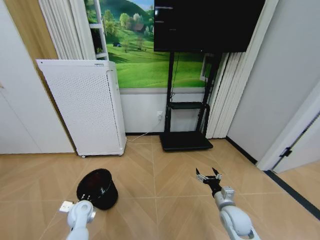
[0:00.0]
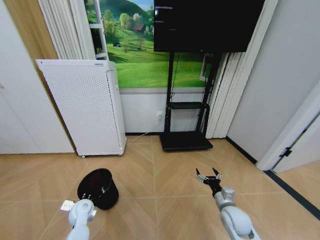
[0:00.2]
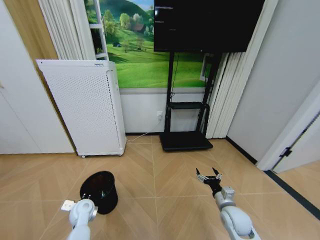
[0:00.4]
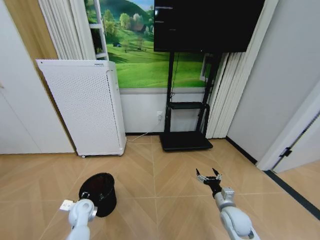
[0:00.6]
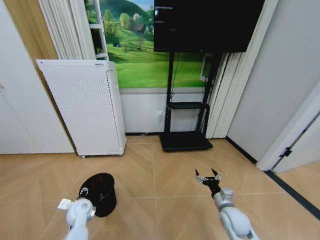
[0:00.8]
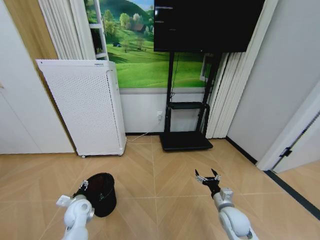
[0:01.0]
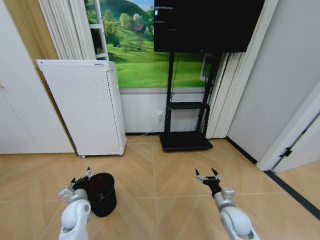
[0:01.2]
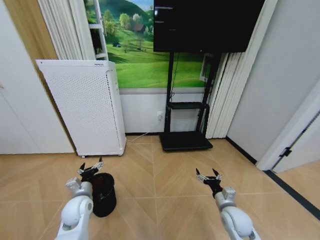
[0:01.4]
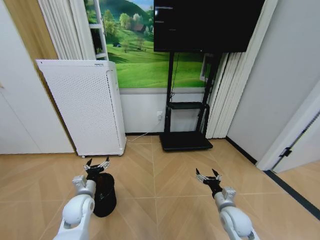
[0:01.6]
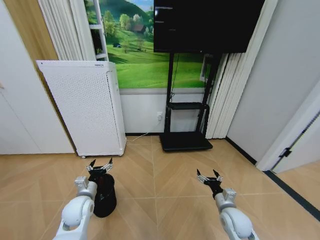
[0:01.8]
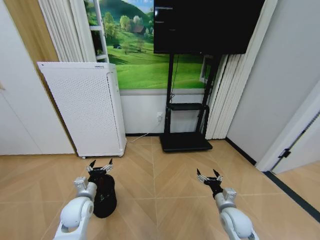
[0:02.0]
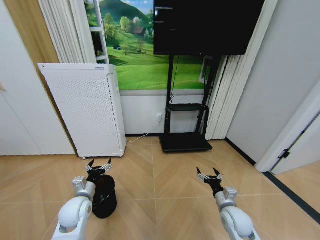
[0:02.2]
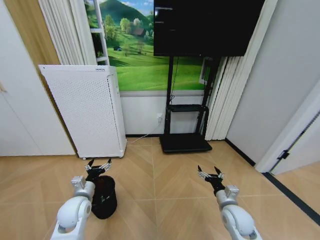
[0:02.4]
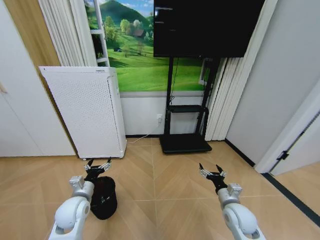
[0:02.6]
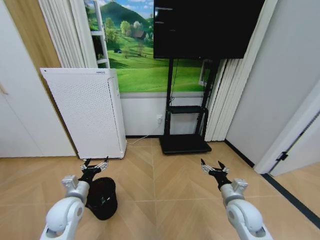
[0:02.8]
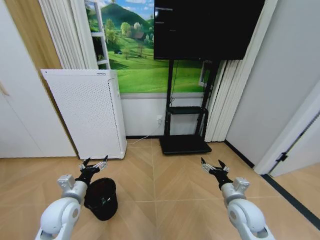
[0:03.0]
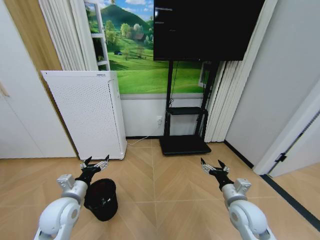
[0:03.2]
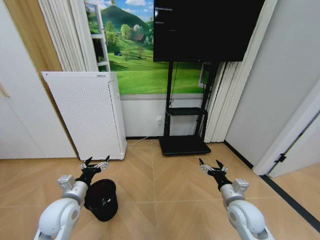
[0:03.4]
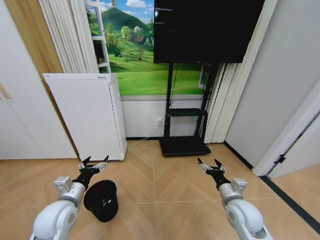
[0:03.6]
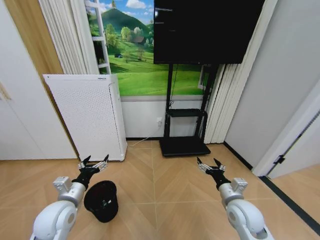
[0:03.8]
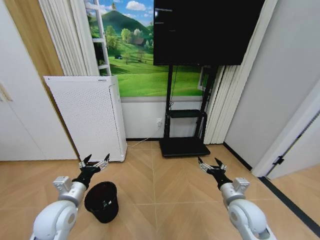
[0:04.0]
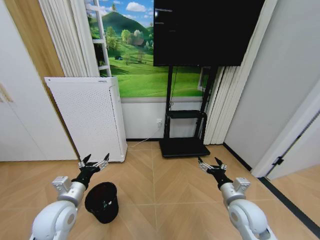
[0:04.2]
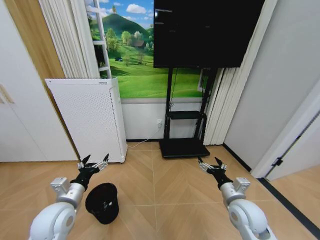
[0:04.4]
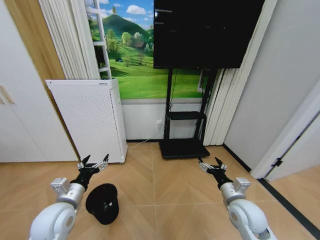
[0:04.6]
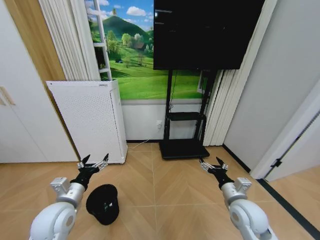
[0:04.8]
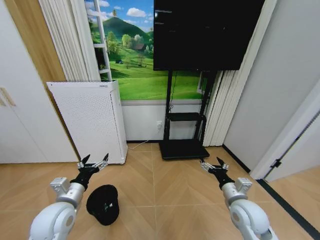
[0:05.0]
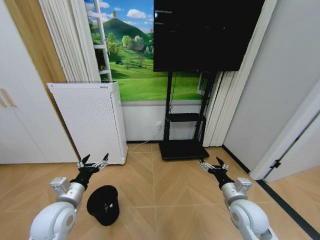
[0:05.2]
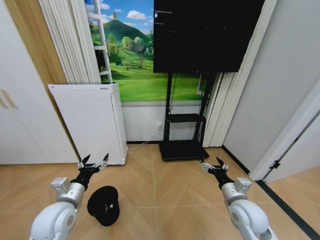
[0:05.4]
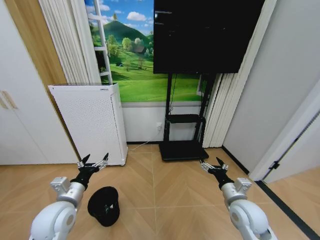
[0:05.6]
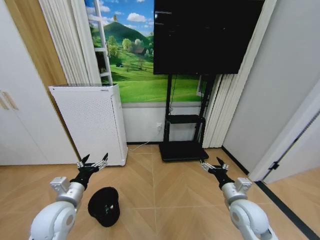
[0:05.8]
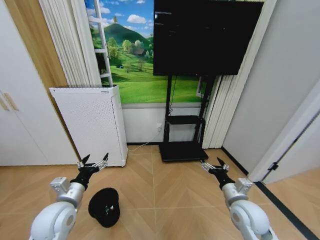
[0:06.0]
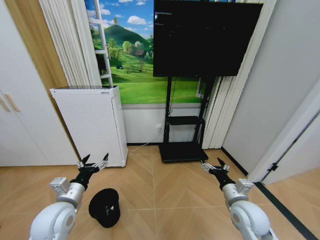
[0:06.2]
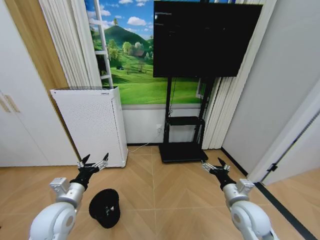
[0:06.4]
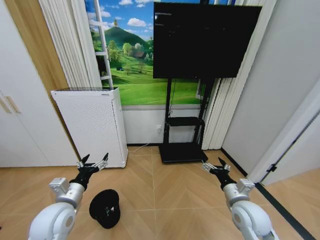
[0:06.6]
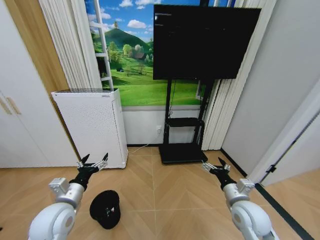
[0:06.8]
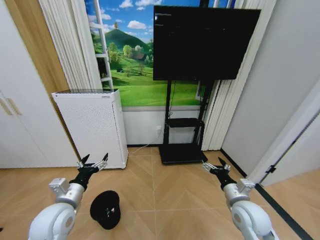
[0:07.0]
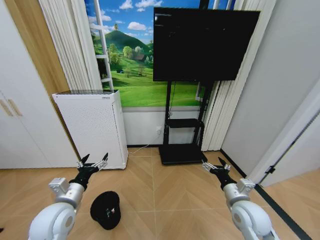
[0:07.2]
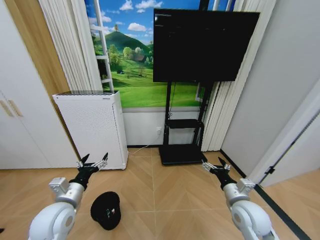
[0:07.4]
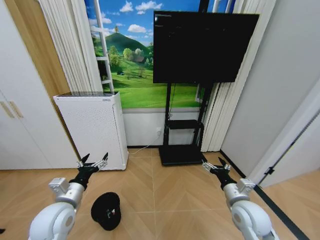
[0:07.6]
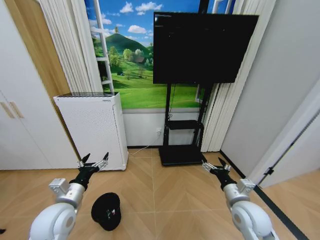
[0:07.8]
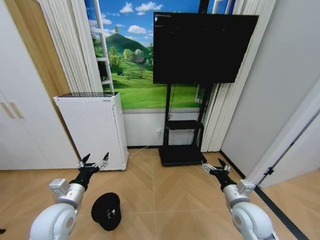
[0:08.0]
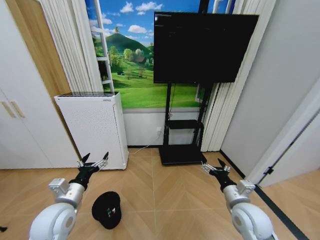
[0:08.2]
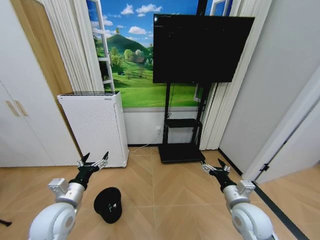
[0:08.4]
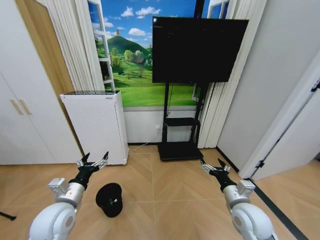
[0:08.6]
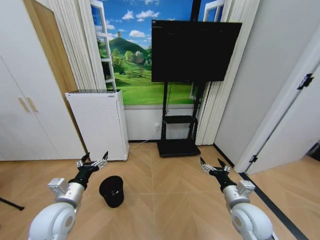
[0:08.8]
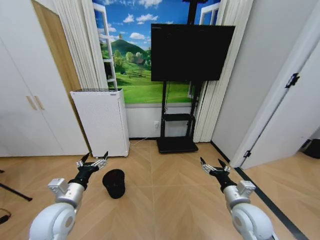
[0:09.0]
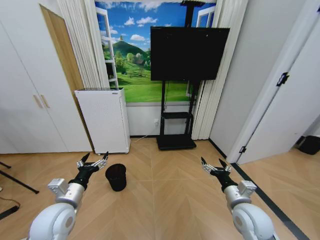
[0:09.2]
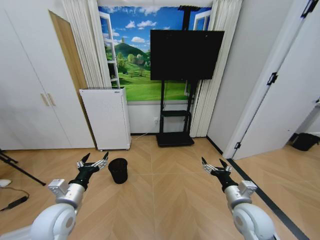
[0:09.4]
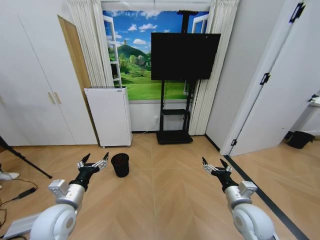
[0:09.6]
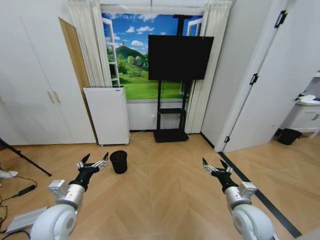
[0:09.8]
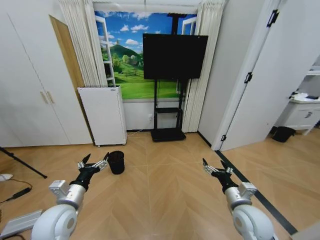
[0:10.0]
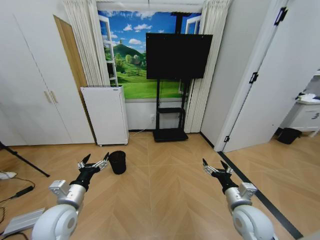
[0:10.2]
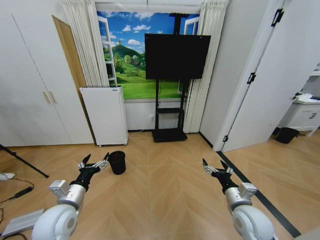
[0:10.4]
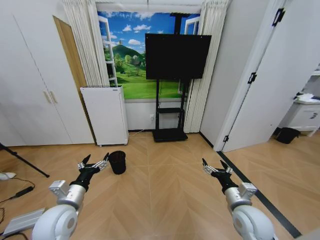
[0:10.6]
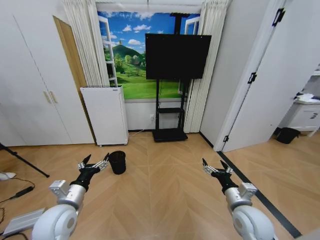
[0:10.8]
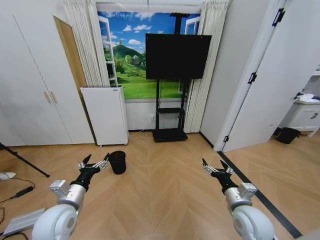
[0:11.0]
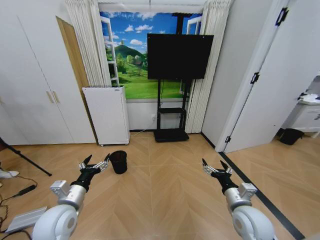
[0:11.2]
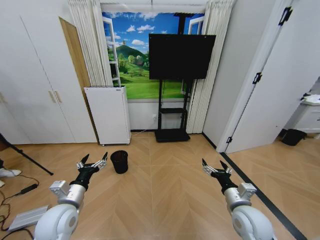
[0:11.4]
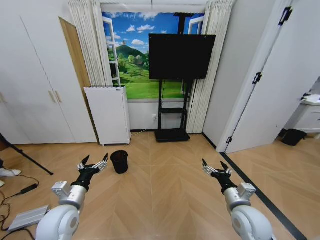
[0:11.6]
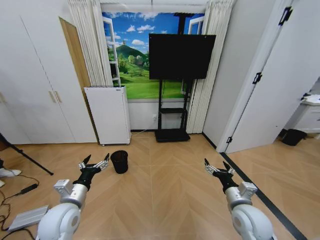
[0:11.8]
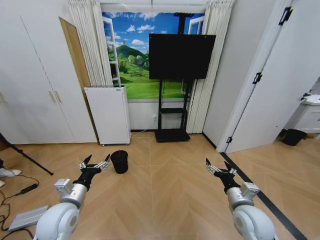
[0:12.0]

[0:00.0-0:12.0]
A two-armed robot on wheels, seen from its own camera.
Task of the whole recording: Pick up the trash bin and place the garbage on the floor into it.
0:00.0 to 0:01.6: The left gripper moves upward, approximately 10 cm, and opens.
0:01.6 to 0:03.0: Both grippers move upward, some 5 cm.
0:03.0 to 0:04.4: There are only small adjustments of the grippers.
0:04.4 to 0:07.6: Both grippers stay put.
0:10.4 to 0:12.0: Both grippers stay put.

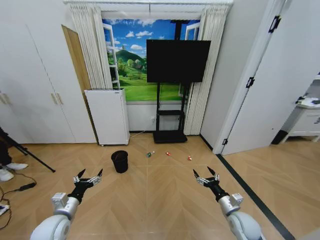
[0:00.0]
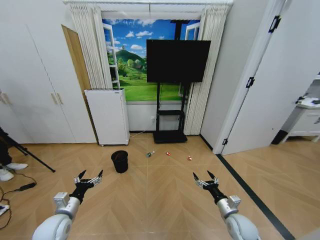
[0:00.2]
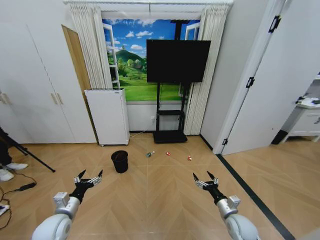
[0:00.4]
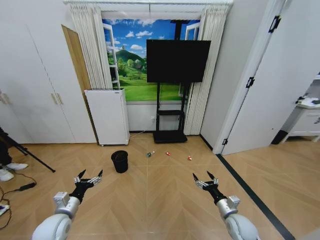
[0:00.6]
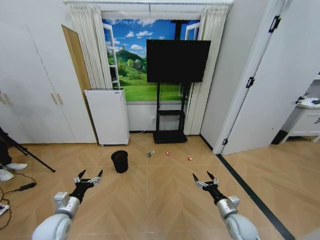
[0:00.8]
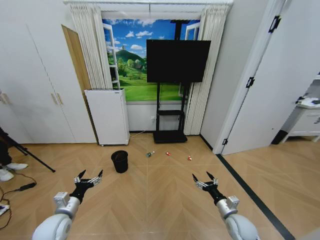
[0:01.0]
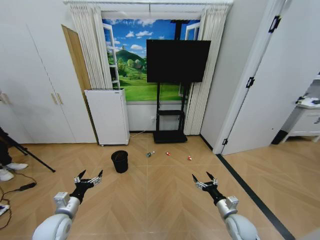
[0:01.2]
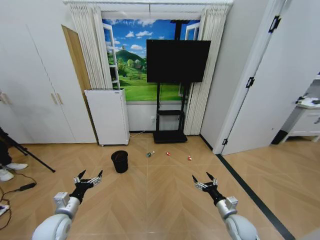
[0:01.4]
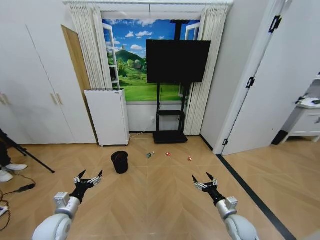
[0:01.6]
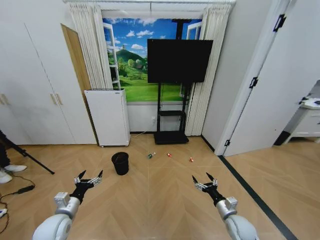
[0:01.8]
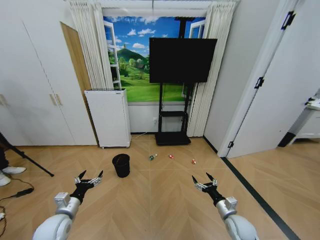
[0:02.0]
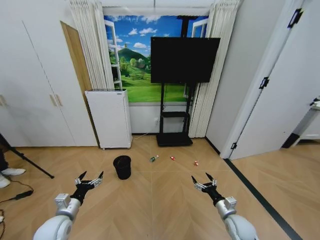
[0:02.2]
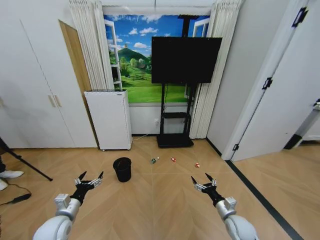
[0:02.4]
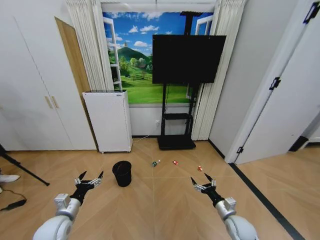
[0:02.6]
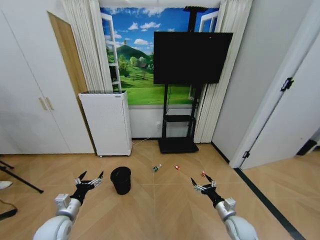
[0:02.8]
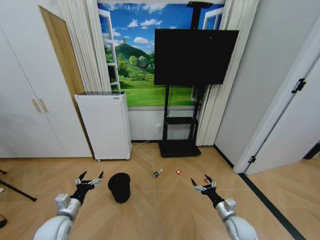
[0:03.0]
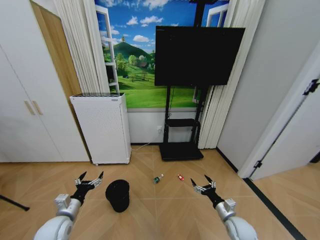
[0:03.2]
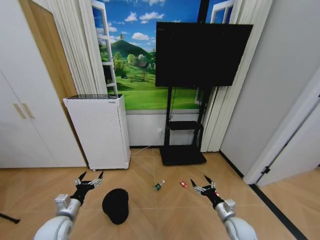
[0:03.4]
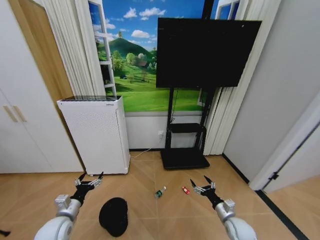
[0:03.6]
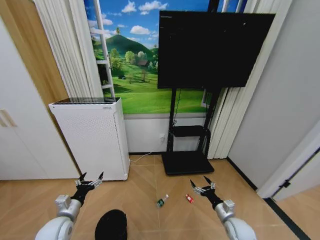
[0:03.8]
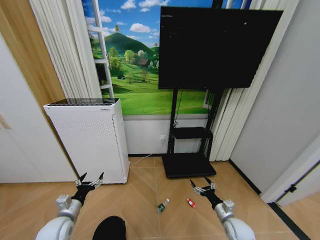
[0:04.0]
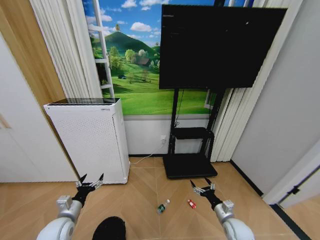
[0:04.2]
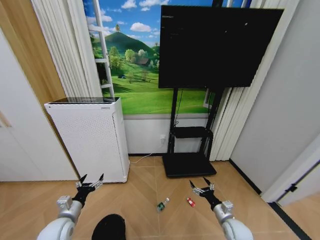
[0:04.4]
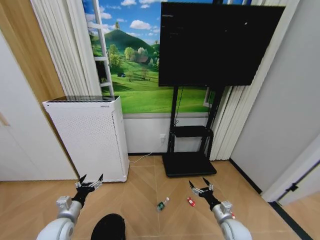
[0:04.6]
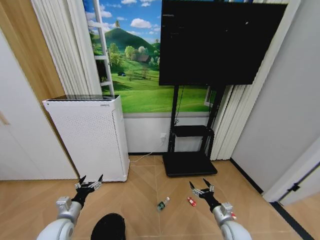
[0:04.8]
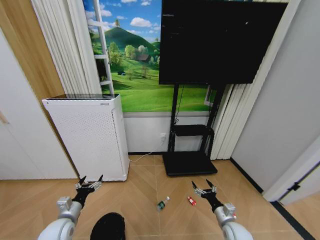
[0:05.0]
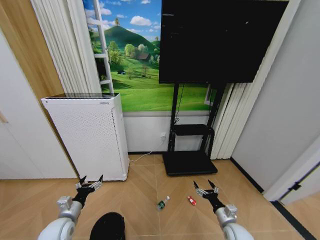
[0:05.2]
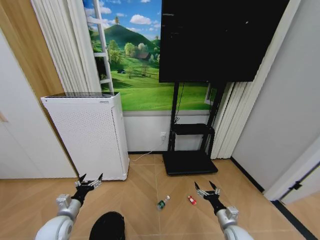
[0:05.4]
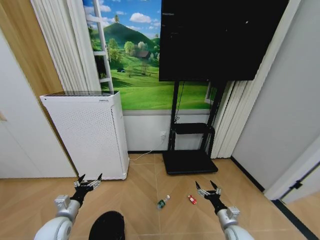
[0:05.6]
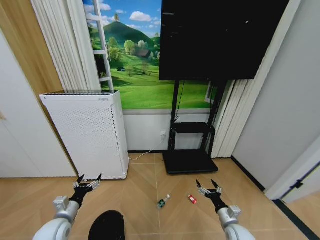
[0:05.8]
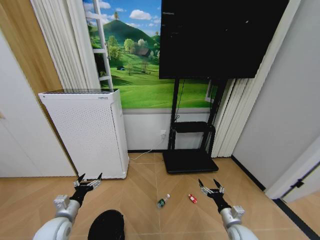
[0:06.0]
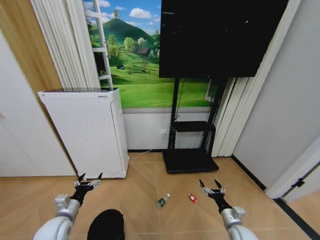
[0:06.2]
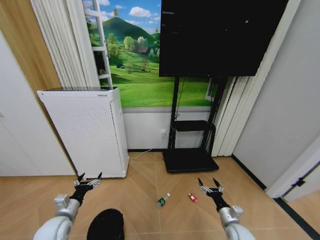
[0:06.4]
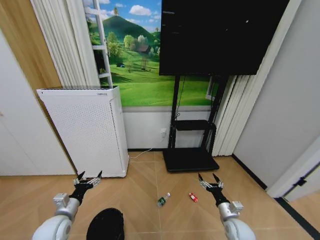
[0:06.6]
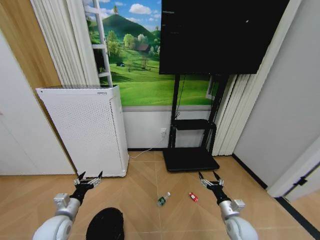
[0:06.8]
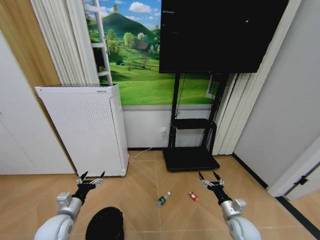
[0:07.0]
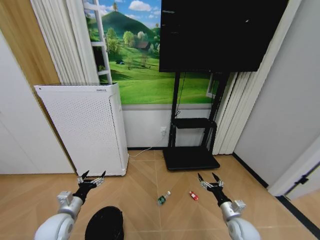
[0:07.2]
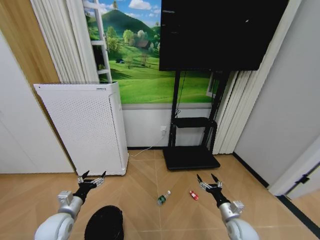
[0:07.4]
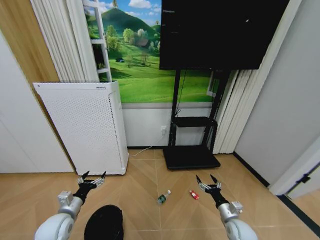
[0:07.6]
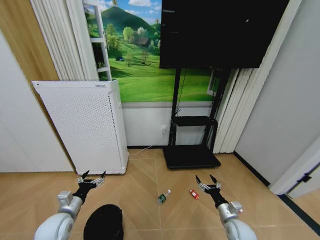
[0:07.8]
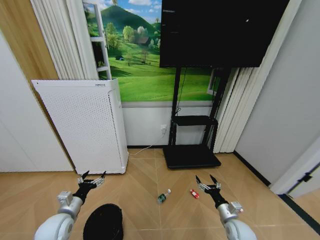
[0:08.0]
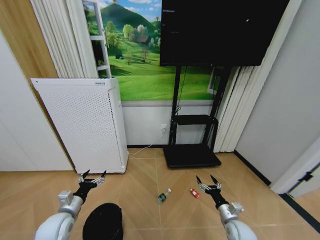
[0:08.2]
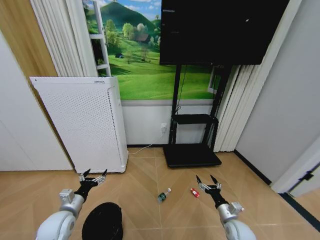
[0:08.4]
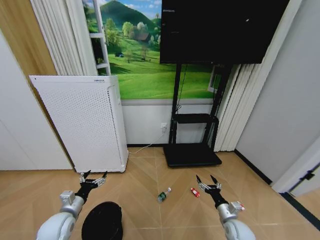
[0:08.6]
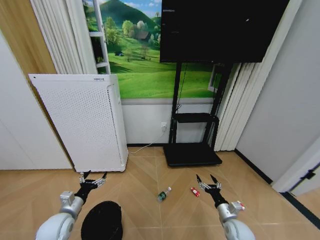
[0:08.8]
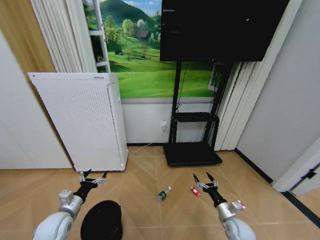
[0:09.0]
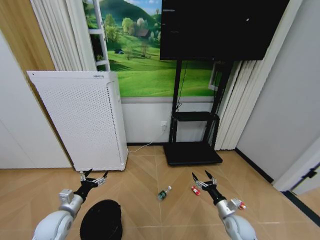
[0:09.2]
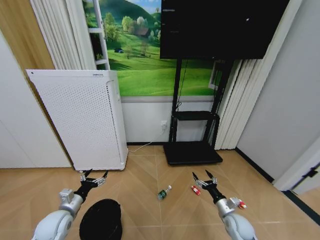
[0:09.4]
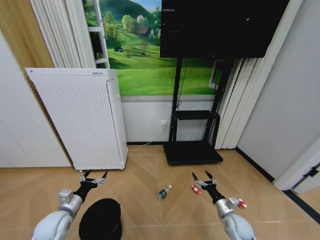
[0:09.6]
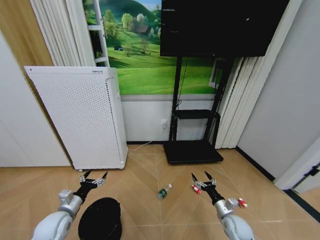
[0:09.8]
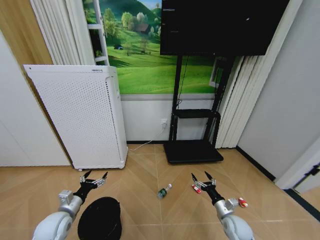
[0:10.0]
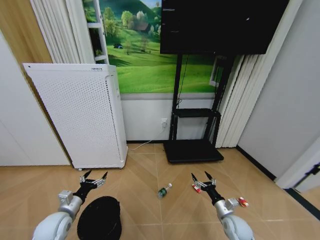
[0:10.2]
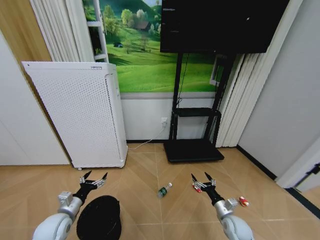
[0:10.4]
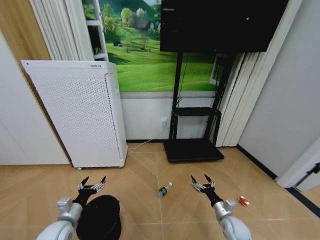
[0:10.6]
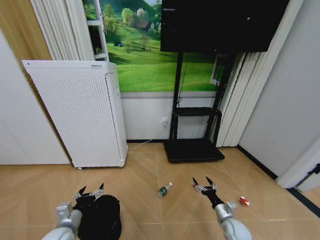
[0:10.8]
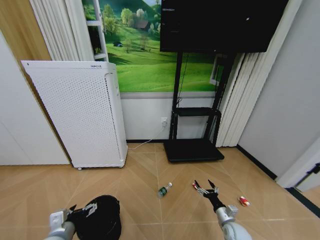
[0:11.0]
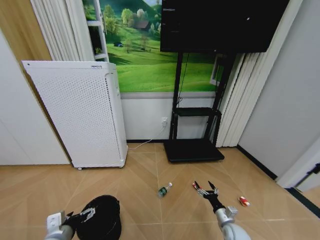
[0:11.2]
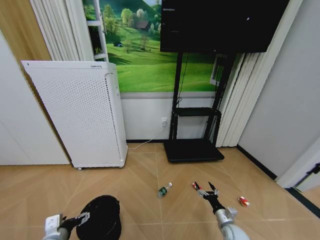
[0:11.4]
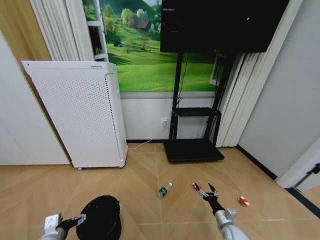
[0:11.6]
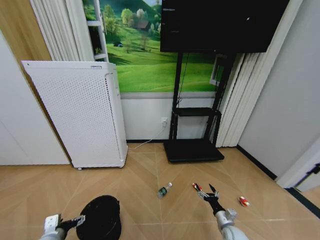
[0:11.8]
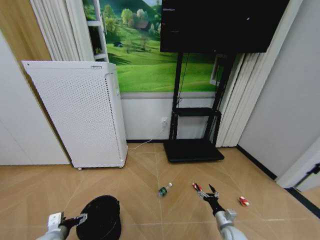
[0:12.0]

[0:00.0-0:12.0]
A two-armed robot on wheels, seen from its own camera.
Task of the whole recording: Pick up the trash bin and place the garbage on the floor into it.
0:04.4 to 0:10.4: The grippers make only small movements.
0:10.4 to 0:12.0: The left gripper heads backward, covering roughly 5 cm, while the right gripper goes roughly 5 cm downward.
